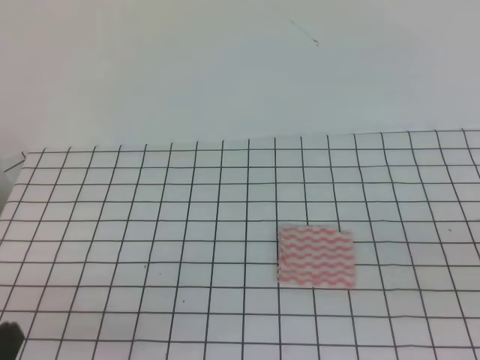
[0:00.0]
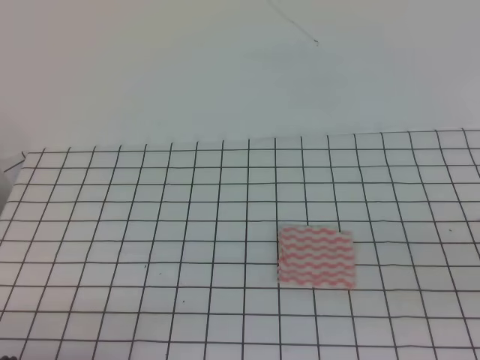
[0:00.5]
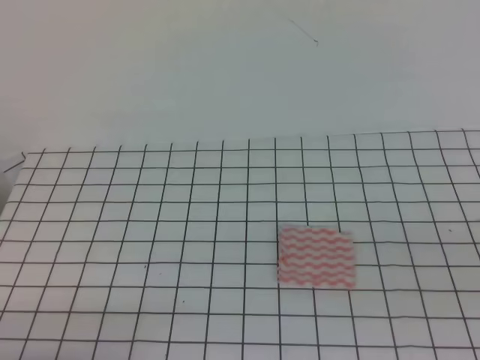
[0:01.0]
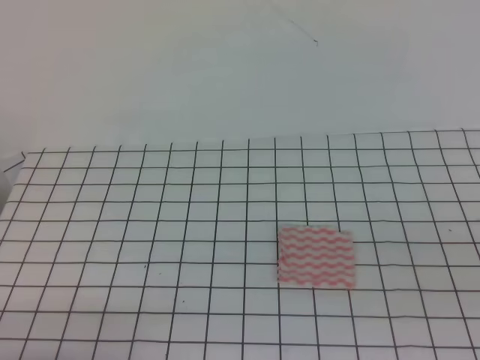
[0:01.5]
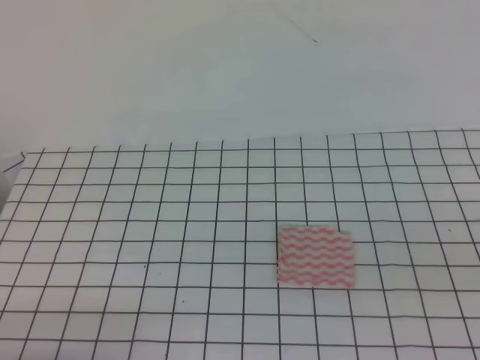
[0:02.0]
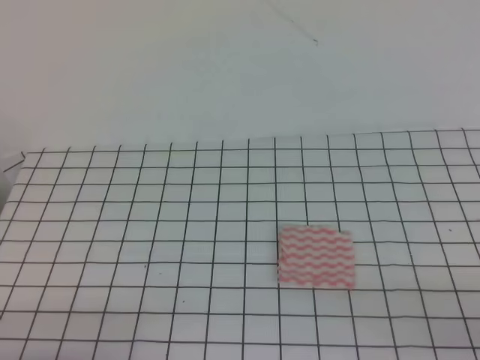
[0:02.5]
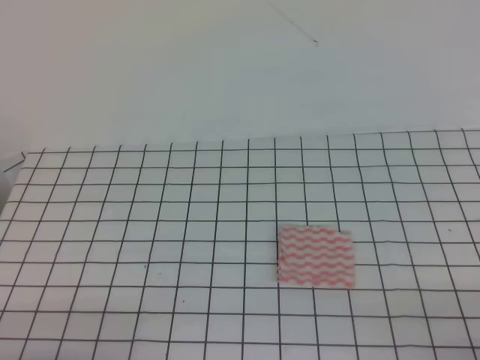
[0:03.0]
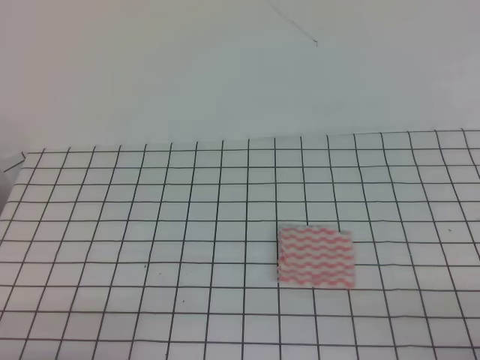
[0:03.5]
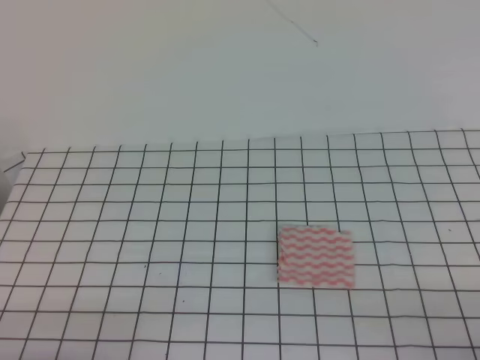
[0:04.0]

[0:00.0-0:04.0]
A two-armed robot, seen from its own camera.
0:00.0 to 0:02.0: The left gripper is displaced downward by some 5 cm.
